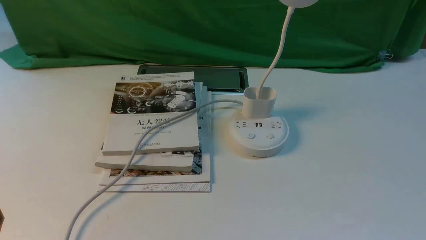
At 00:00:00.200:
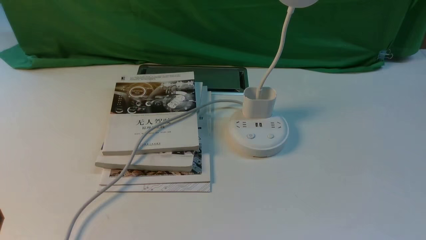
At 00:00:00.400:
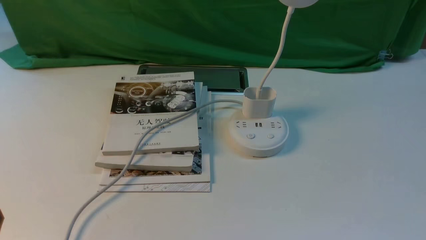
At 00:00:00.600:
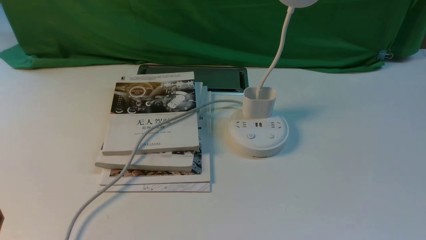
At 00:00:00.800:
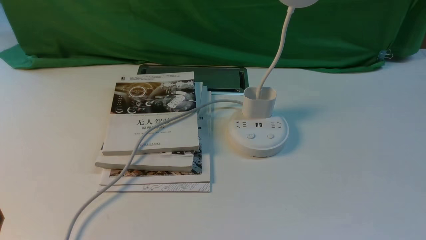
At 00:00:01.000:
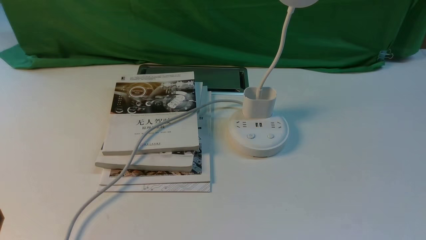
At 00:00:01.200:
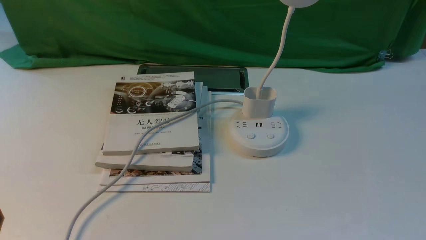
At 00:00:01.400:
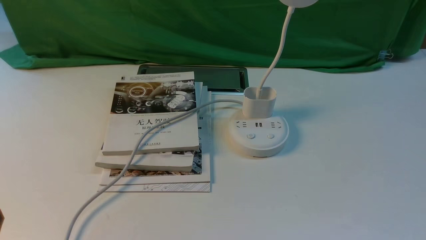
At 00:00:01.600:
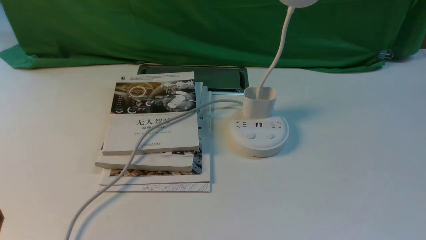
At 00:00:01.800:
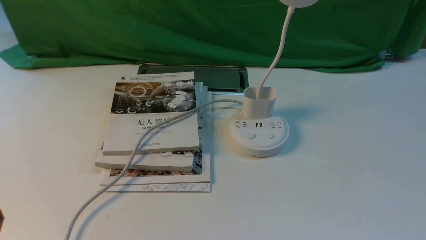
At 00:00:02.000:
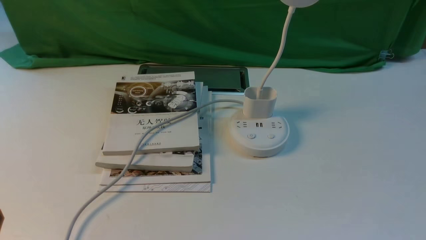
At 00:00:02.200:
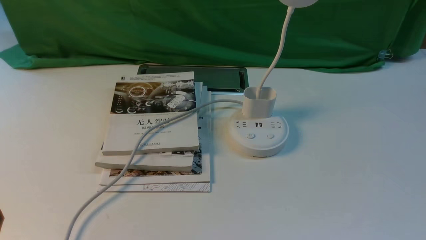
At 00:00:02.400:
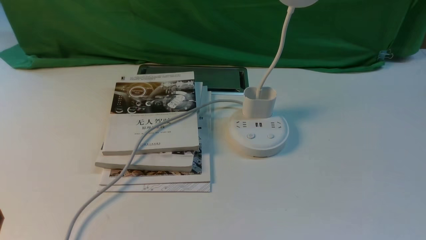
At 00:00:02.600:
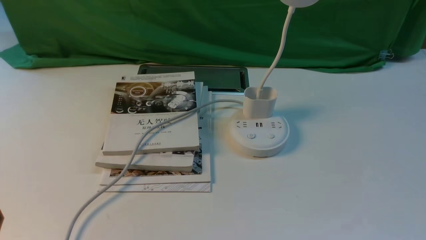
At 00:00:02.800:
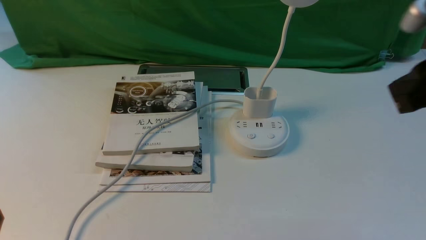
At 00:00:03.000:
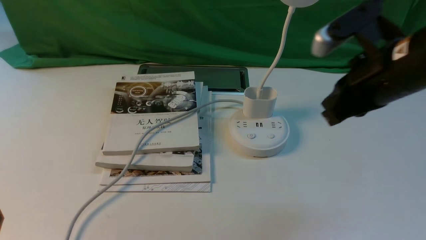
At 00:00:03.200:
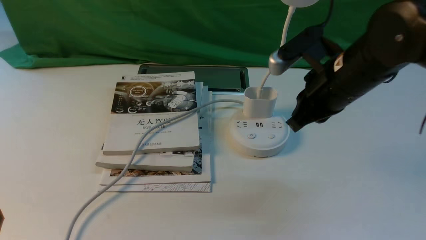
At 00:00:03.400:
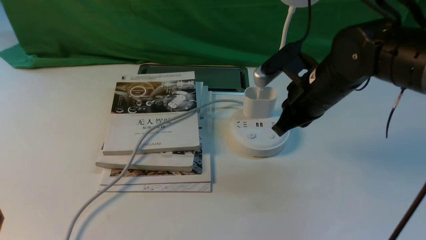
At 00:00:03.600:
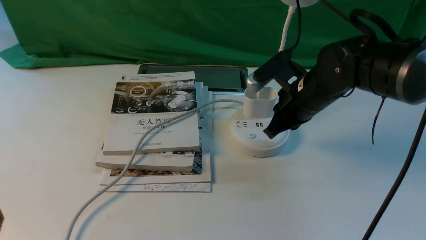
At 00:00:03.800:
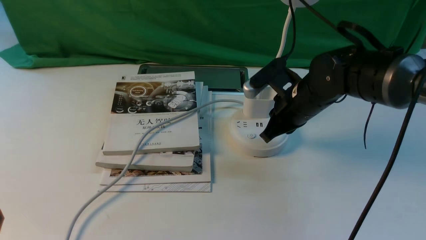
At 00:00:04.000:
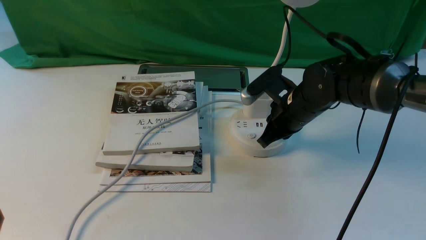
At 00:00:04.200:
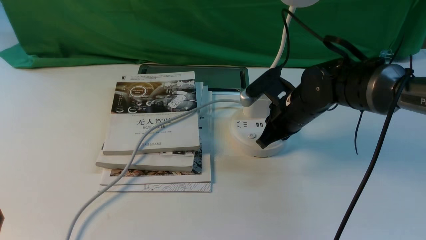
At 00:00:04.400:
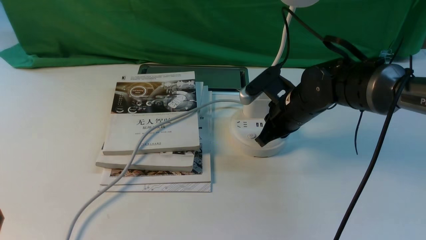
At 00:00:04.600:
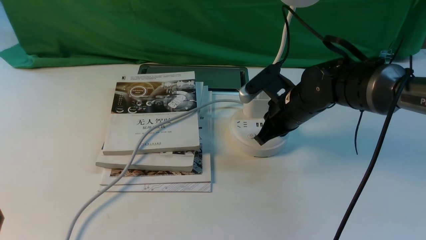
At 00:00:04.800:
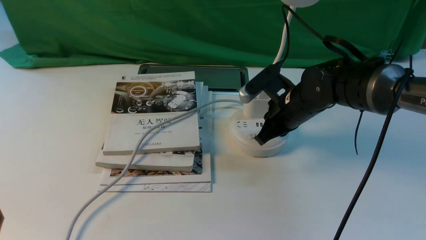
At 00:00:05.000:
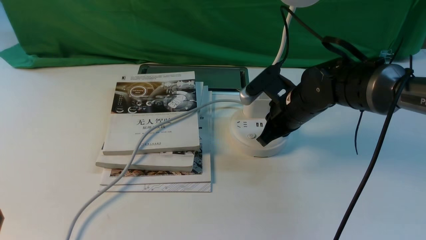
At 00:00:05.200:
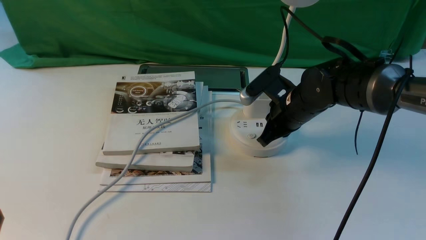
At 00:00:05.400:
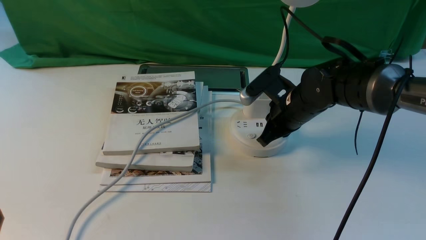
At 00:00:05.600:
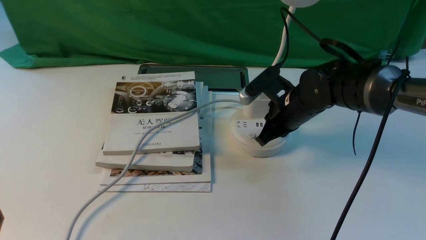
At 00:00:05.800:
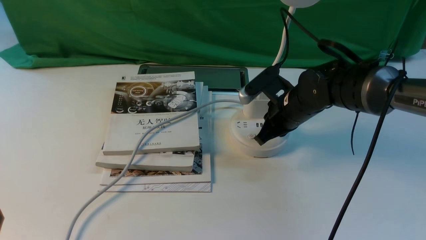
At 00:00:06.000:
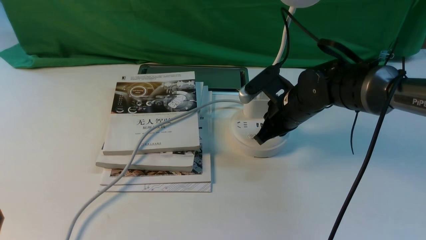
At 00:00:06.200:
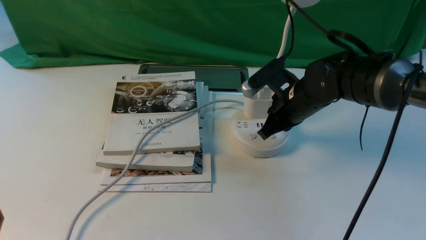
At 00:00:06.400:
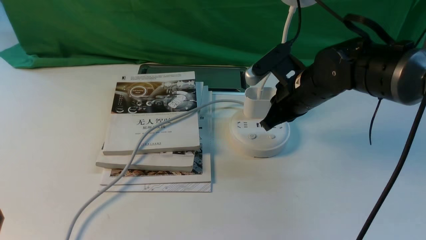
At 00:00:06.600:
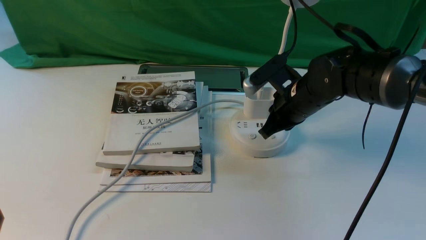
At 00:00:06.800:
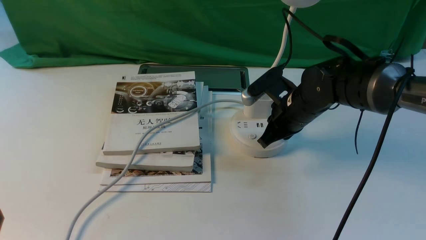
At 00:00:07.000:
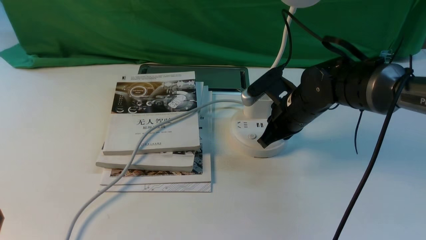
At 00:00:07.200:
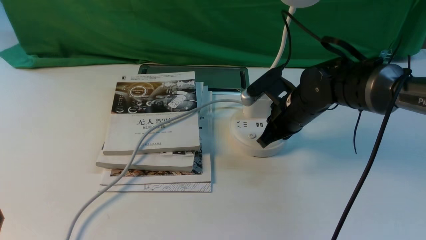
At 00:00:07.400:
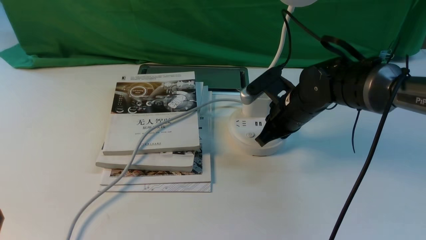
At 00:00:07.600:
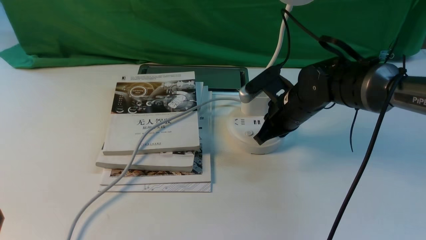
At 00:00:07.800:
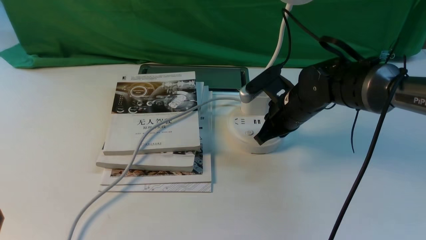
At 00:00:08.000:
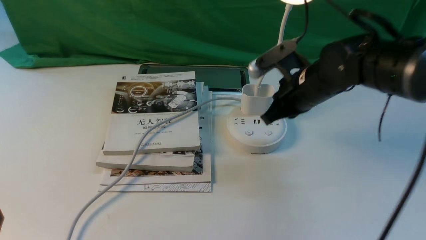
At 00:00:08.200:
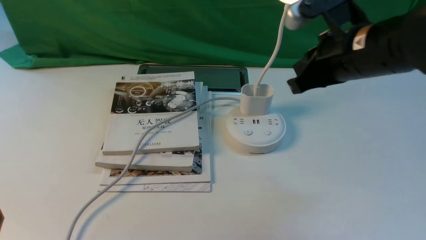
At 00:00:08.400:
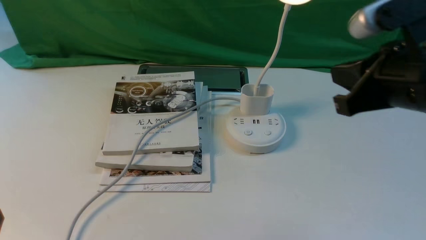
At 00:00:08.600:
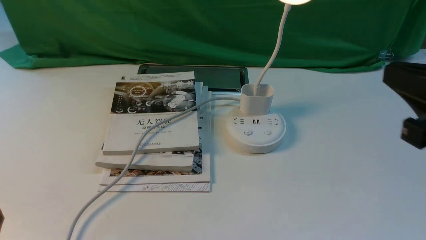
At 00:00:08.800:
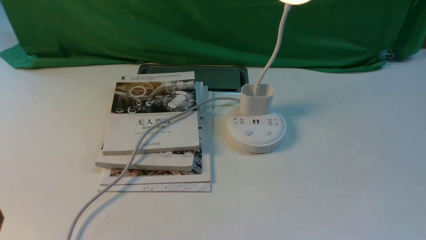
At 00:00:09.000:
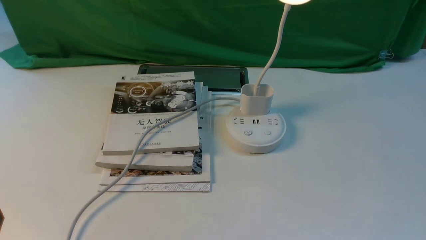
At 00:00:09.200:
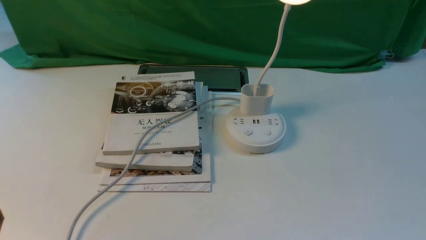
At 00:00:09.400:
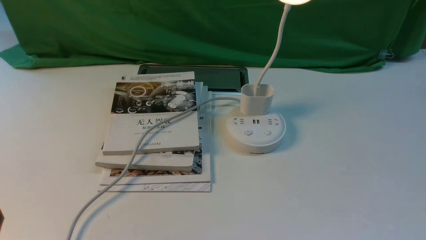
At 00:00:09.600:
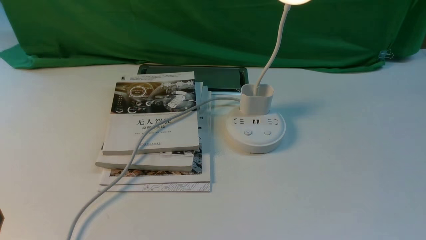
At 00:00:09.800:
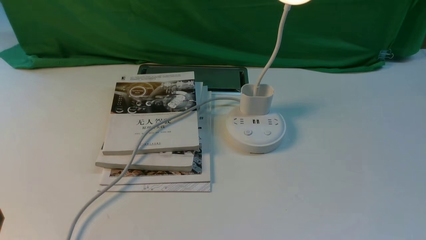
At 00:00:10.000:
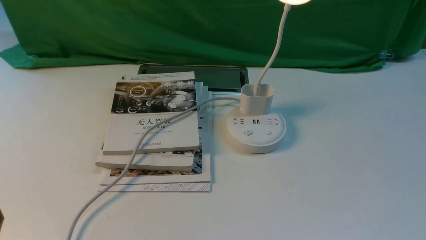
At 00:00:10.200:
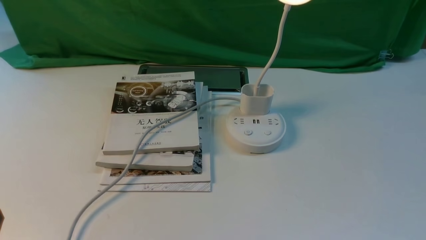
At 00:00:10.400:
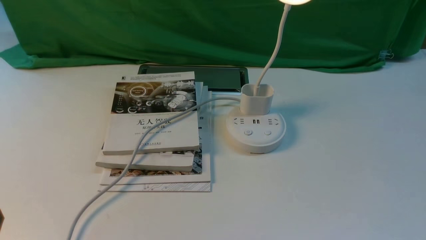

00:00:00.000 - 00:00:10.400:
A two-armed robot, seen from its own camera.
Step, 00:00:00.000 - 00:00:08.000: use the right arm to press the button switch on the lamp holder.
00:00:01.400 - 00:00:03.000: The right gripper travels forward, upward and to the left by about 30 cm, and closes.
00:00:03.000 - 00:00:04.400: The right gripper goes about 25 cm downward, forward and to the left.
00:00:04.400 - 00:00:06.000: Both grippers stay put.
00:00:06.000 - 00:00:07.400: The grippers stay close to where they were, moving slightly.
00:00:07.400 - 00:00:09.000: The right gripper is displaced backward, upward and to the right by some 35 cm.

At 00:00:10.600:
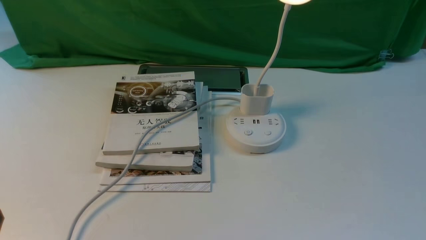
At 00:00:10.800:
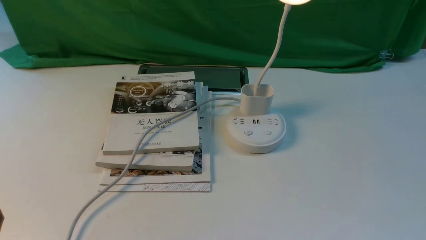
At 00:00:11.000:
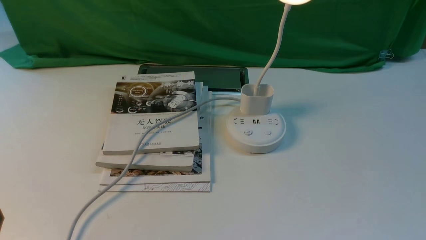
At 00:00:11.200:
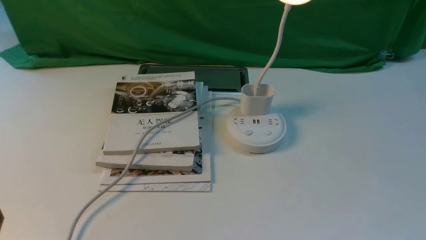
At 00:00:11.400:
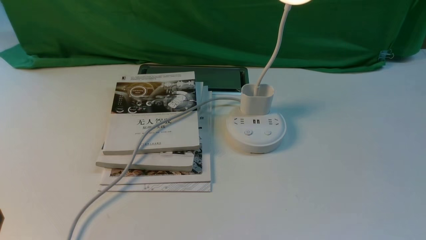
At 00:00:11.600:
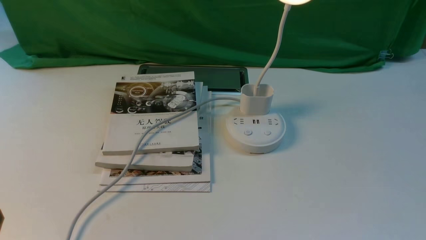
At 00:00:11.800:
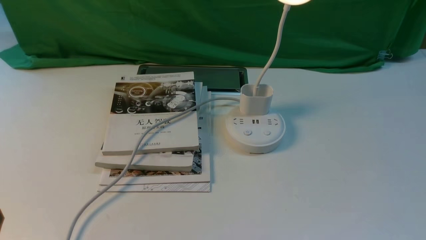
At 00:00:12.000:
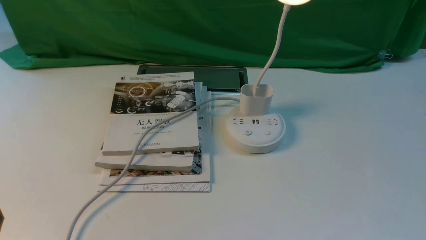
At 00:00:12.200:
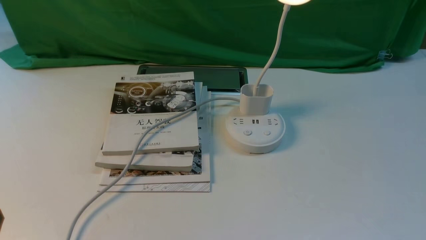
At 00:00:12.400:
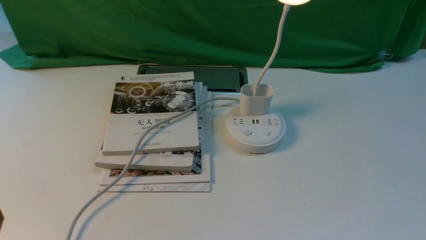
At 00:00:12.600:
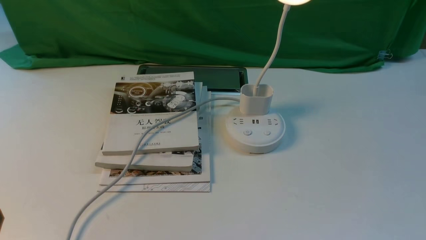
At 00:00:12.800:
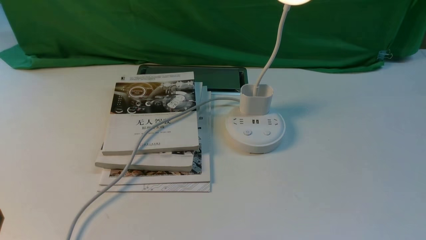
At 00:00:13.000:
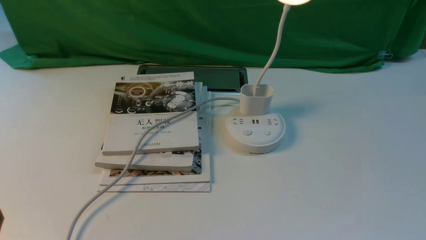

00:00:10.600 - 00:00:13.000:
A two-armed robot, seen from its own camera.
00:00:10.600 - 00:00:11.800: Neither gripper changes place.
